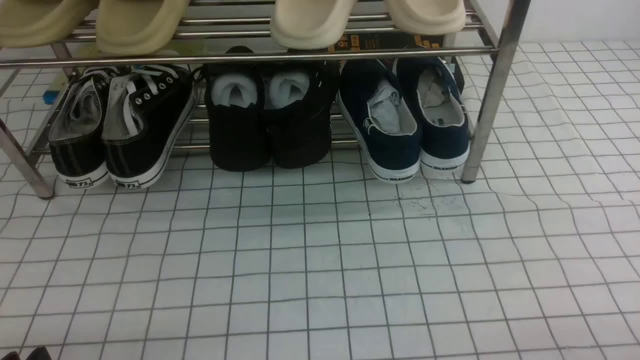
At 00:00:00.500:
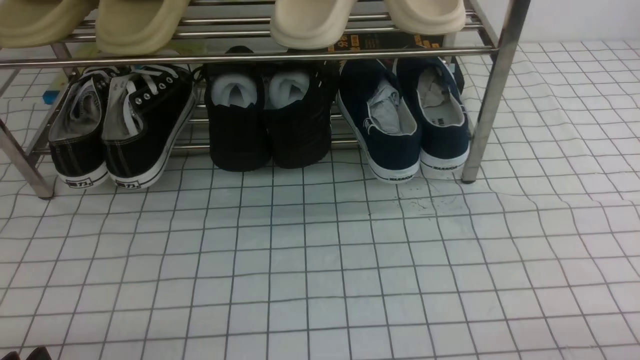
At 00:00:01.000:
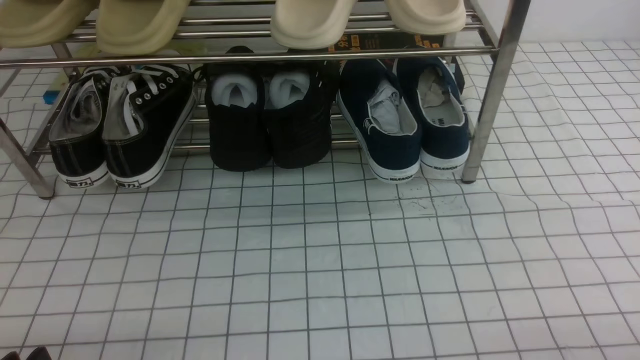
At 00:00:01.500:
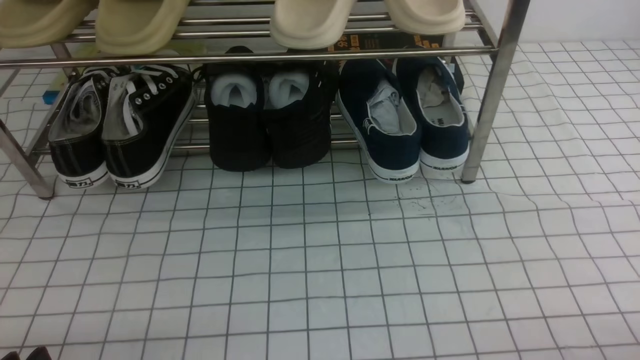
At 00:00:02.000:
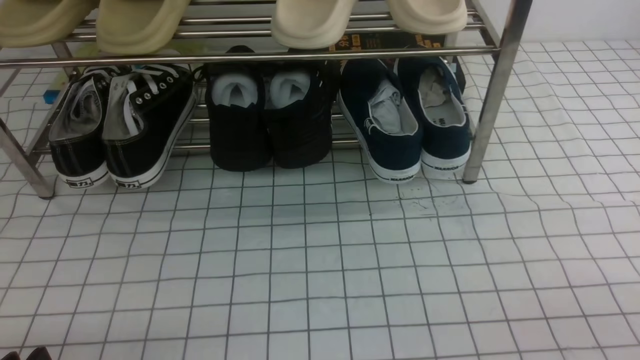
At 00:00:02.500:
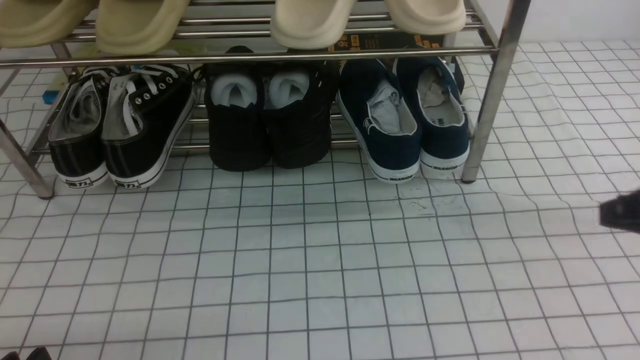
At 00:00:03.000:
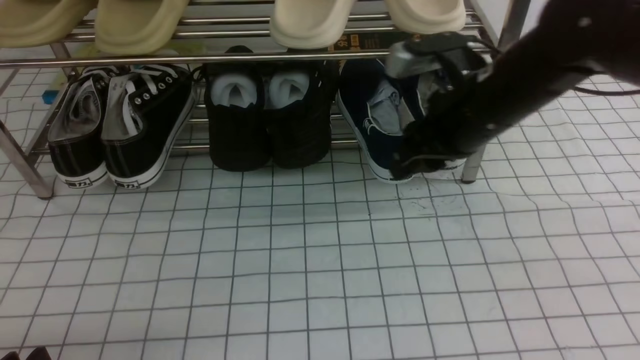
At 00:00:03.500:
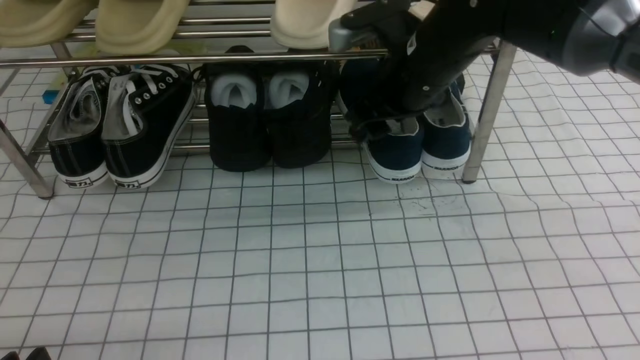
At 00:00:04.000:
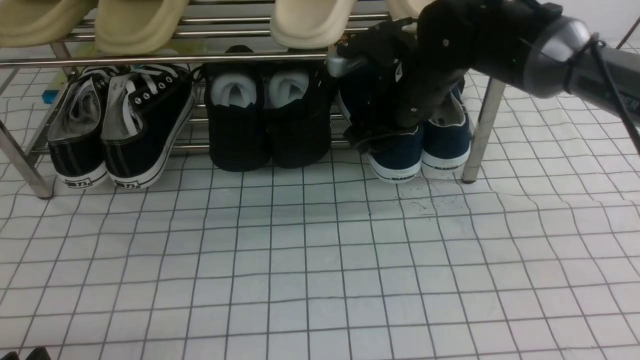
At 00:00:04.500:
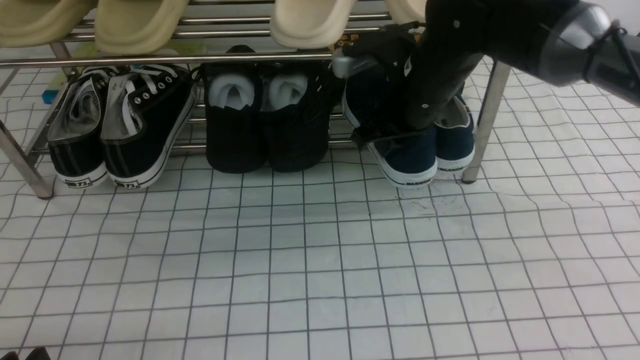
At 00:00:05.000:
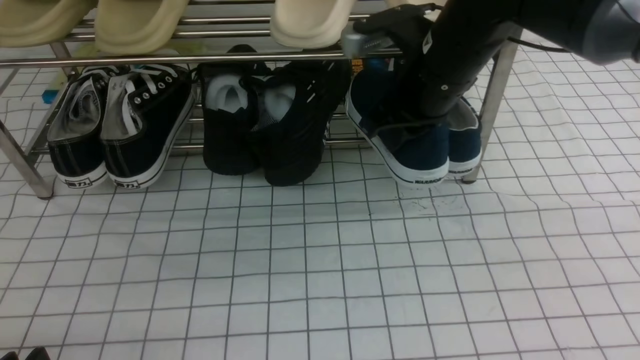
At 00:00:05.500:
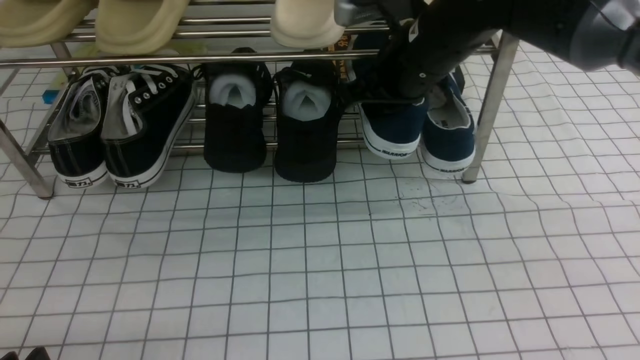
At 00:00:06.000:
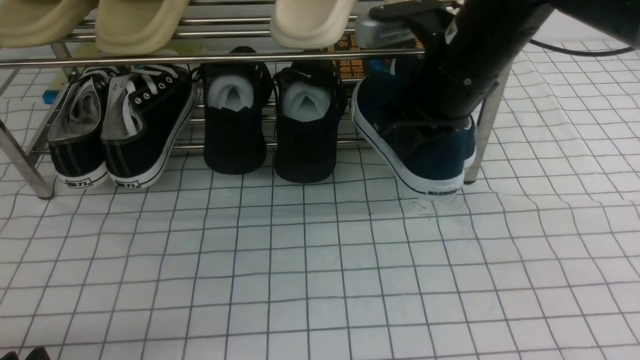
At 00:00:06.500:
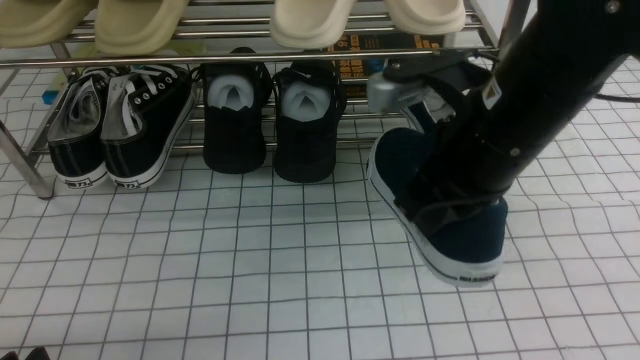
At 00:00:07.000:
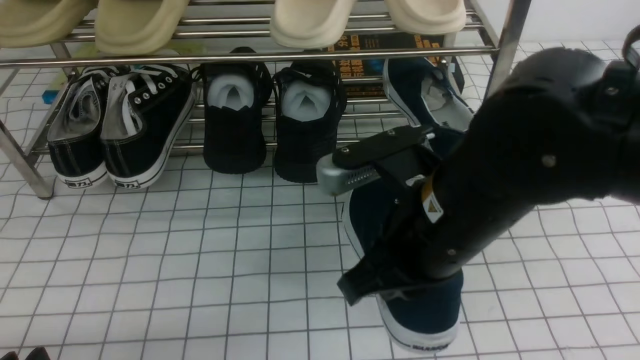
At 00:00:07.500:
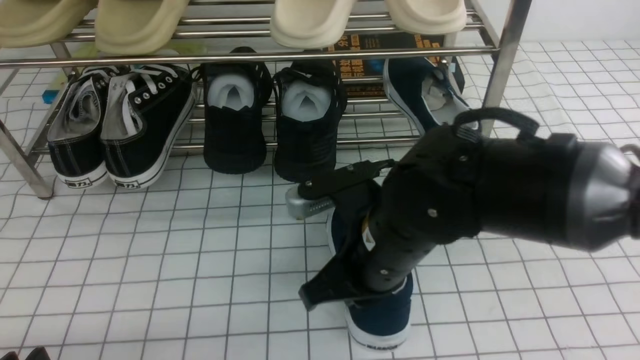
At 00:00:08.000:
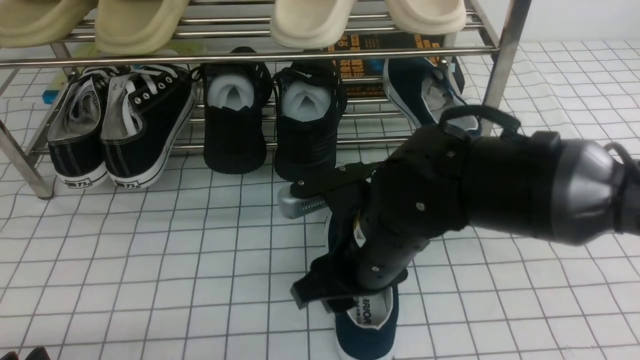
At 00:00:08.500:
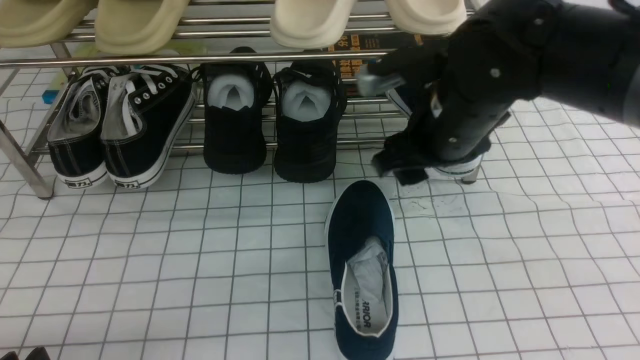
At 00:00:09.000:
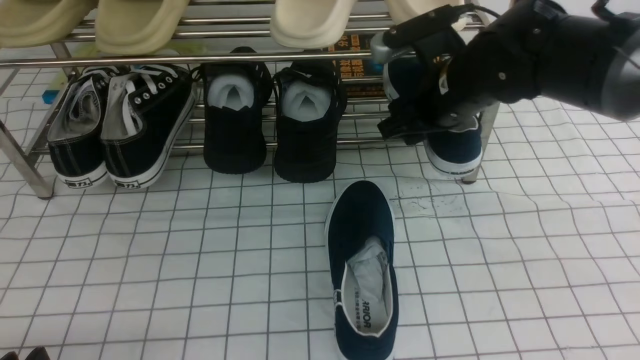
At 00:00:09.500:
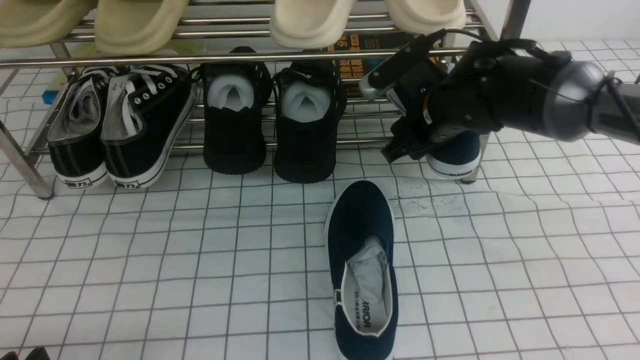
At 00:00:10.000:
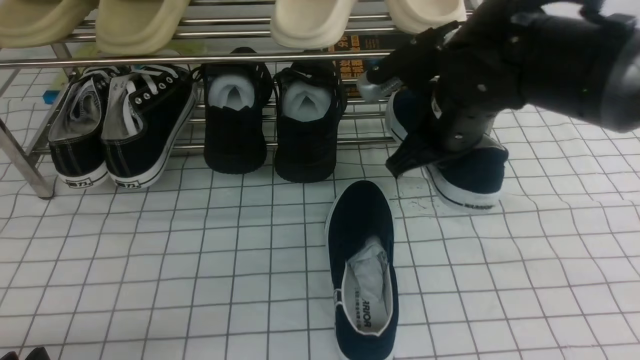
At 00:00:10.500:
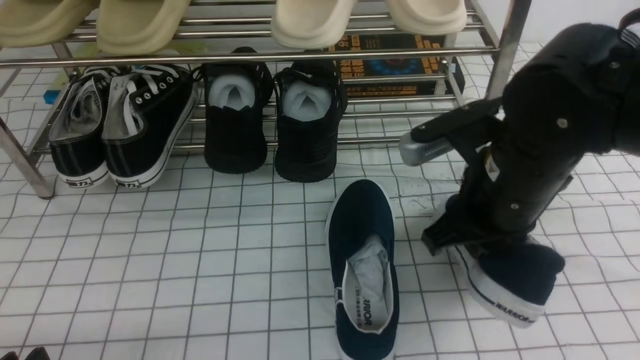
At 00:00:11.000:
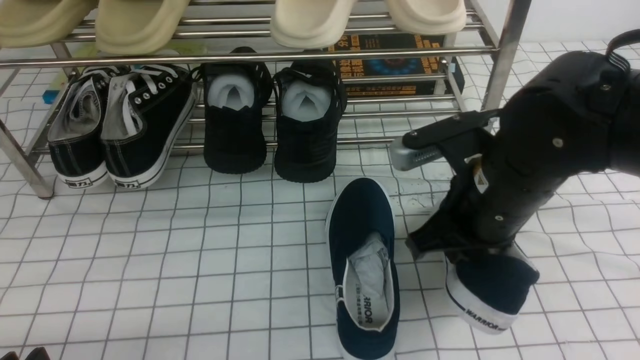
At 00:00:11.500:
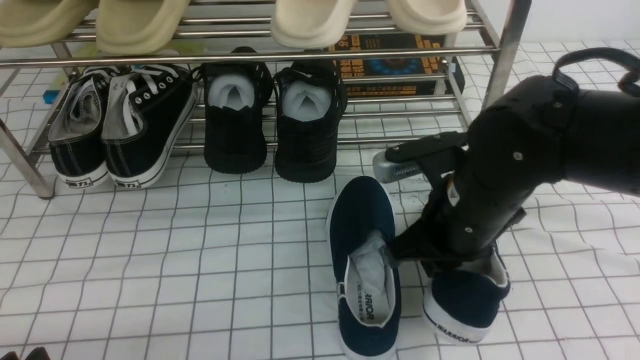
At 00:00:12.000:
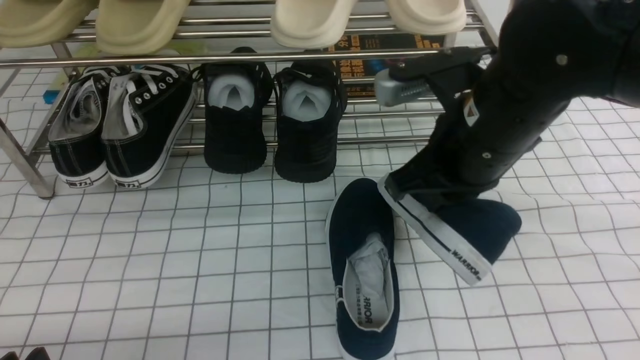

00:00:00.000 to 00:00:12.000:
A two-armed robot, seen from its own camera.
Step, 00:00:00.000 to 00:00:04.000: use the right arm to clamp a shoe on the right side of the shoe rack.
Step, 00:00:04.500 to 00:00:08.000: use the right arm to take out the clamped shoe from the shoe rack and put it down.
Step, 00:00:08.500 to 00:00:09.500: use the right arm to clamp a shoe on the right side of the shoe rack.
00:00:02.000 to 00:00:04.000: The right gripper goes roughly 40 cm forward and to the left, and opens.
00:00:04.000 to 00:00:06.000: The right gripper travels backward and upward by some 10 cm, and closes its fingers.
00:00:06.000 to 00:00:08.000: The right gripper travels downward, backward and to the left by about 15 cm, and opens.
00:00:08.000 to 00:00:10.000: The right gripper heads forward and to the right, covering some 10 cm, and closes up.
00:00:10.000 to 00:00:12.000: The right gripper goes approximately 5 cm backward.

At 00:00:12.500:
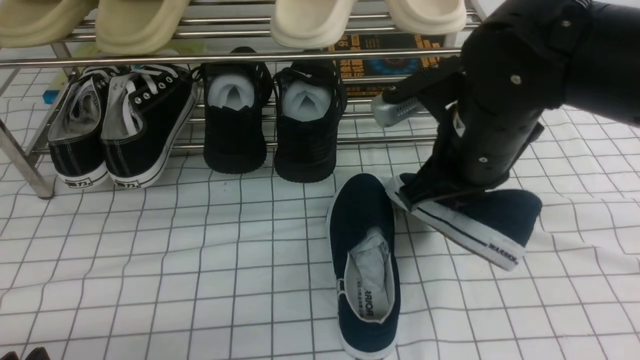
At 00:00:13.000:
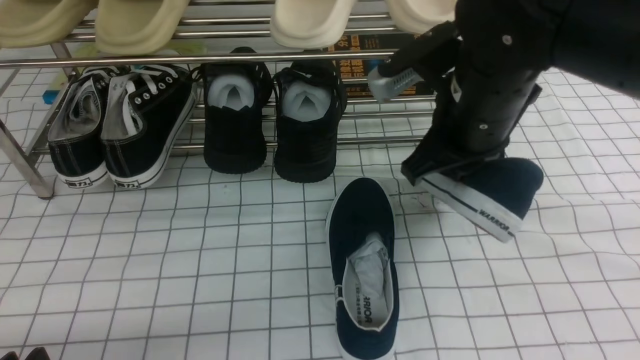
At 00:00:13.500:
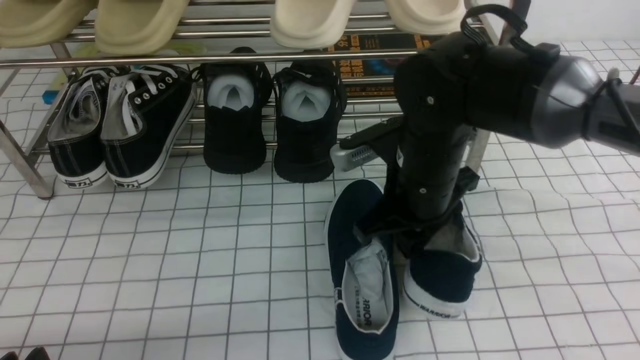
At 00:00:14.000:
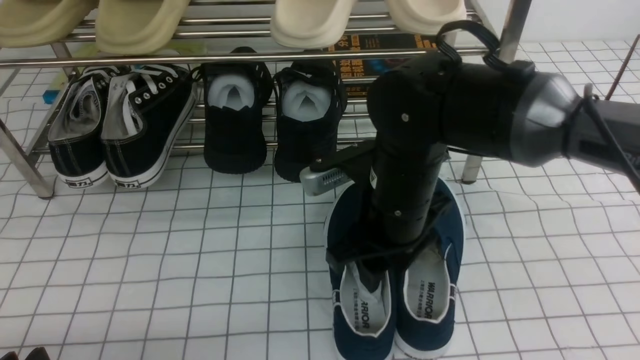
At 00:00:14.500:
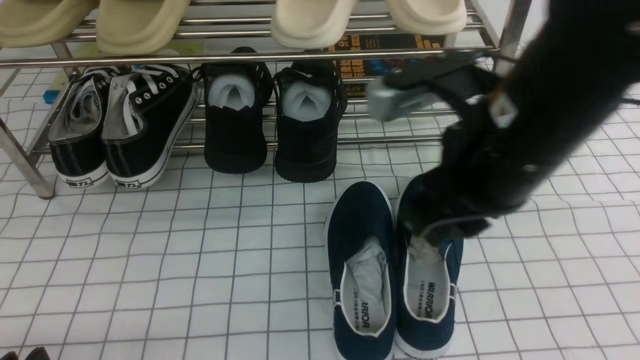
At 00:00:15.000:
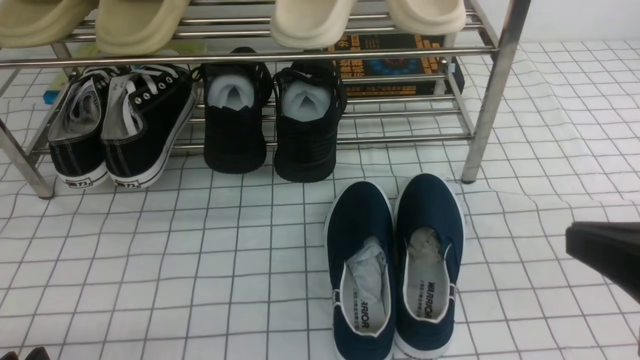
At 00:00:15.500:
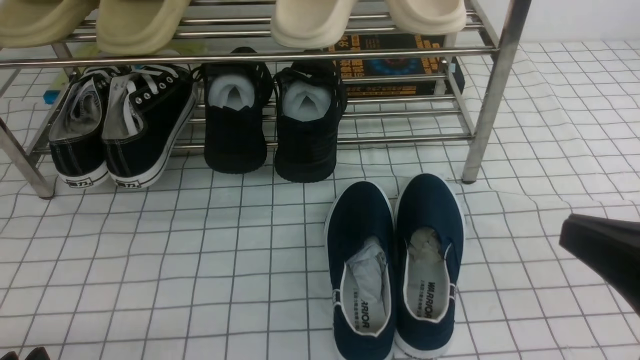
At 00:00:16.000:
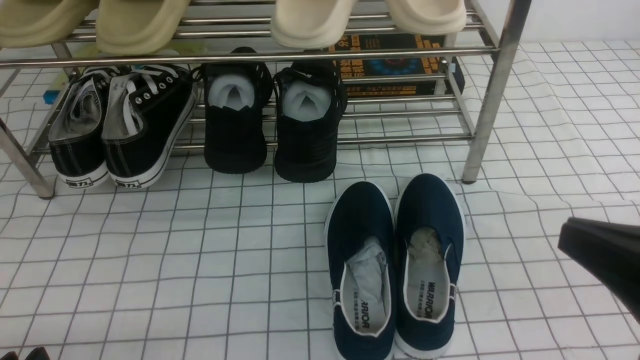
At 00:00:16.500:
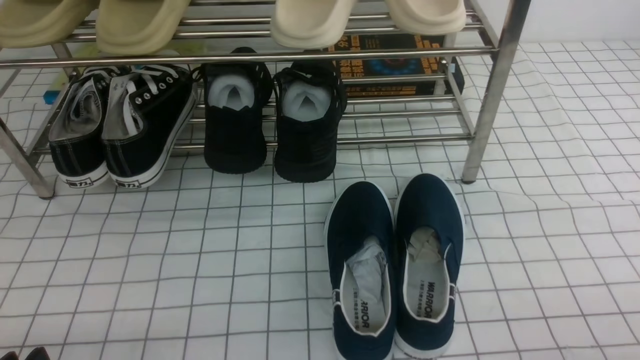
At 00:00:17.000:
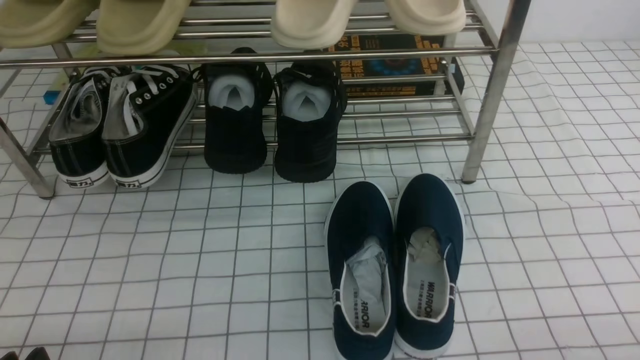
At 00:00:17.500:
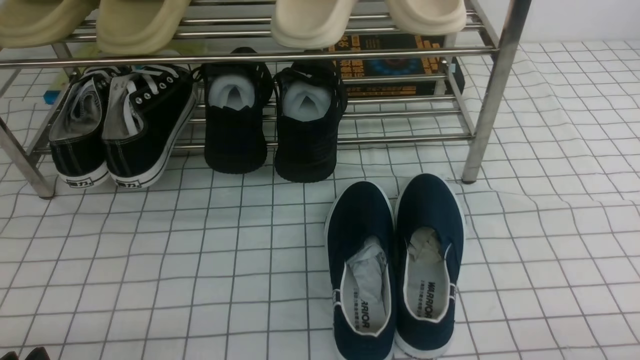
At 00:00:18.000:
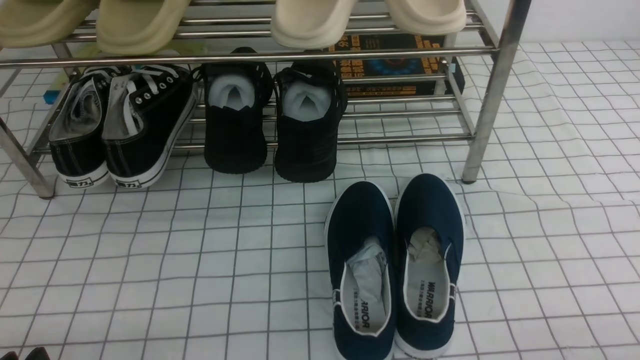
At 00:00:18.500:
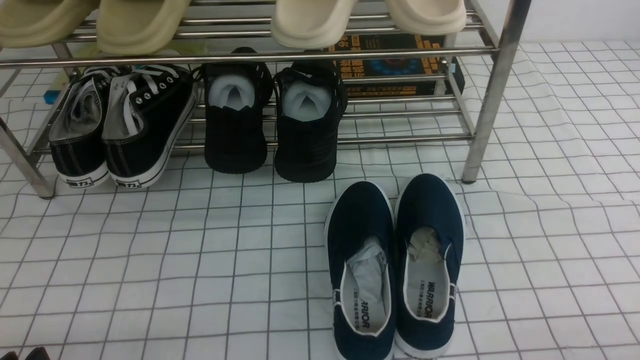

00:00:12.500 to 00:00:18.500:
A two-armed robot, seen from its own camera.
00:00:12.500 to 00:00:14.500: The right gripper shifts approximately 10 cm backward.
00:00:14.500 to 00:00:16.500: The right gripper heads to the right, downward and backward, covering about 30 cm.
